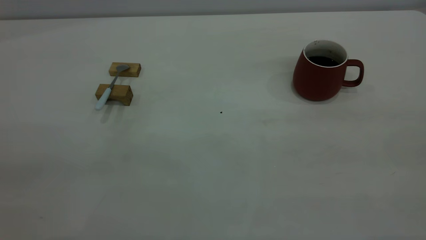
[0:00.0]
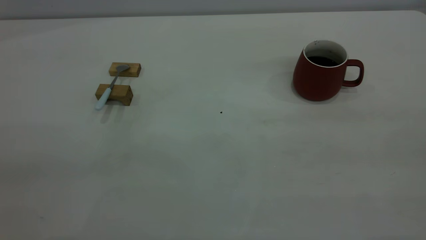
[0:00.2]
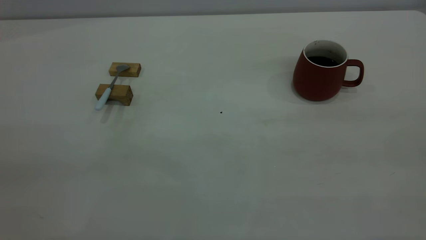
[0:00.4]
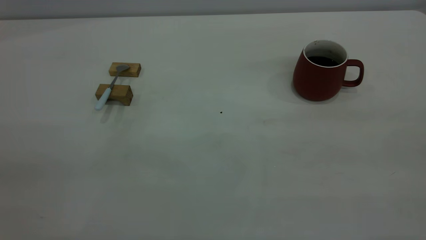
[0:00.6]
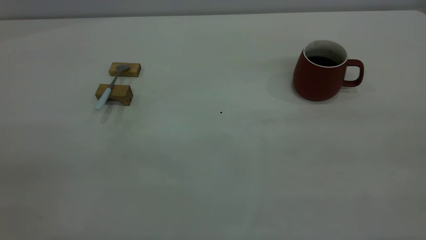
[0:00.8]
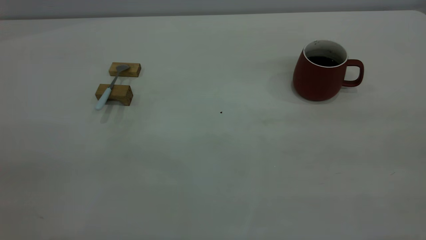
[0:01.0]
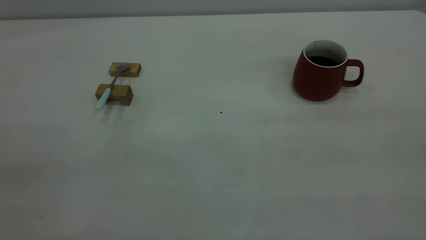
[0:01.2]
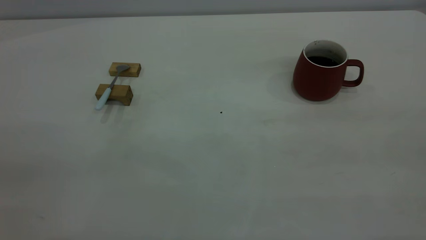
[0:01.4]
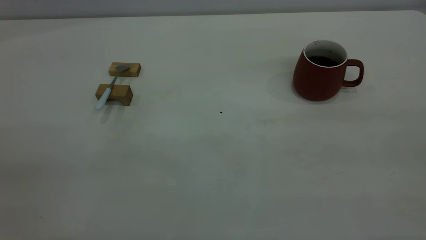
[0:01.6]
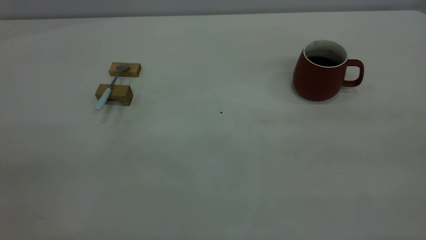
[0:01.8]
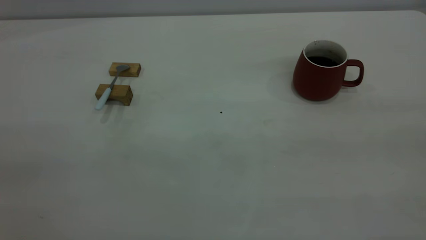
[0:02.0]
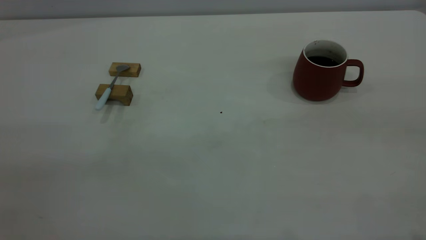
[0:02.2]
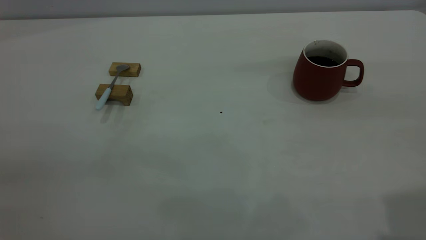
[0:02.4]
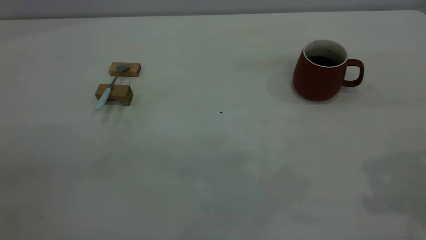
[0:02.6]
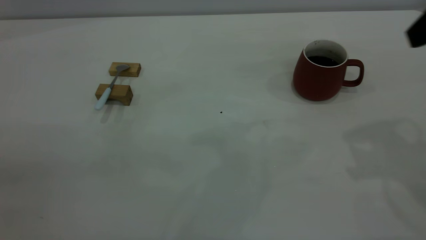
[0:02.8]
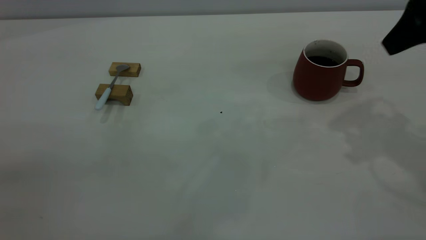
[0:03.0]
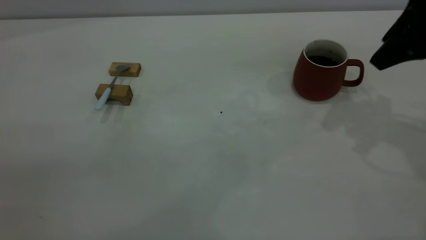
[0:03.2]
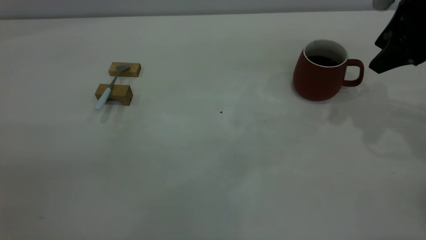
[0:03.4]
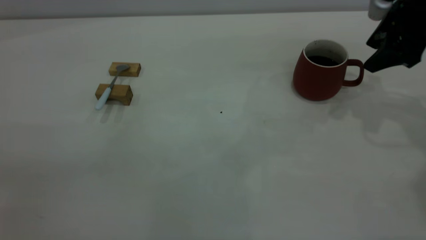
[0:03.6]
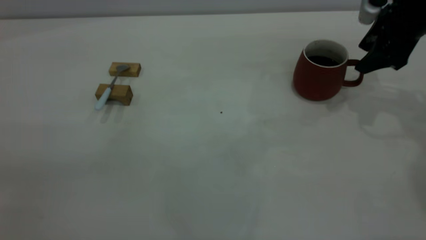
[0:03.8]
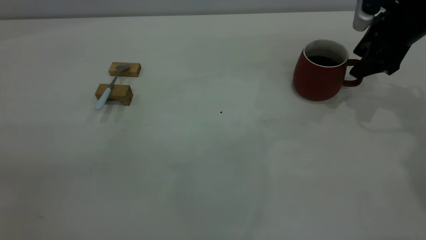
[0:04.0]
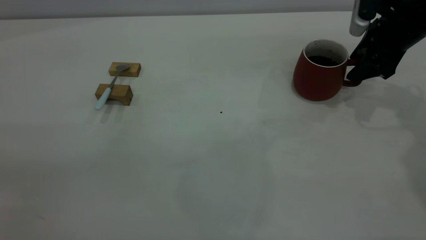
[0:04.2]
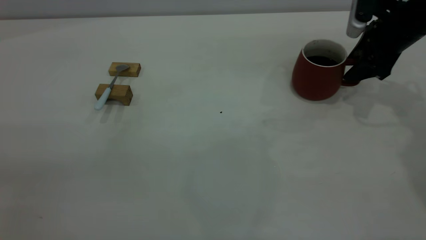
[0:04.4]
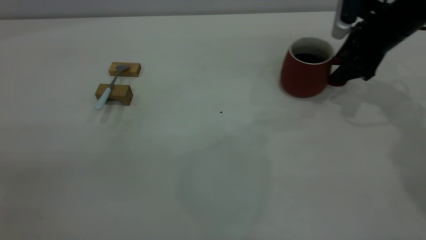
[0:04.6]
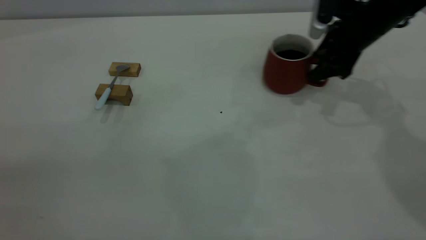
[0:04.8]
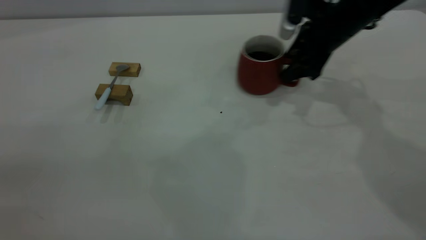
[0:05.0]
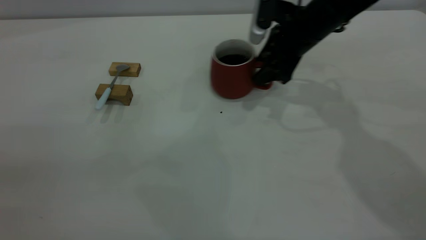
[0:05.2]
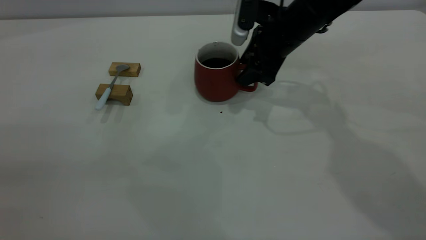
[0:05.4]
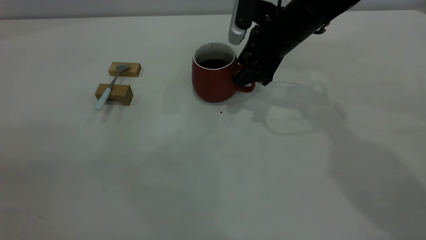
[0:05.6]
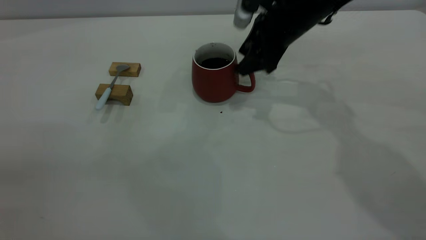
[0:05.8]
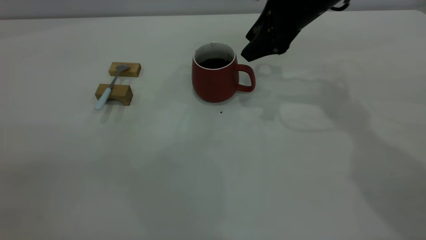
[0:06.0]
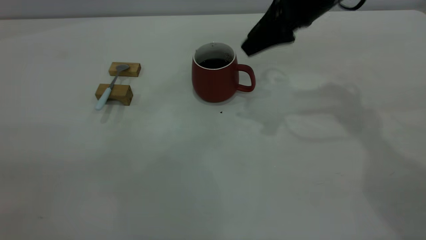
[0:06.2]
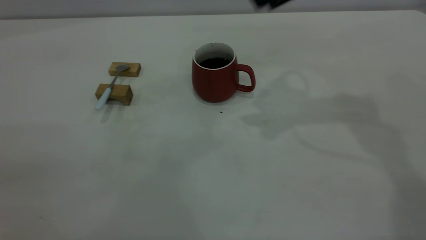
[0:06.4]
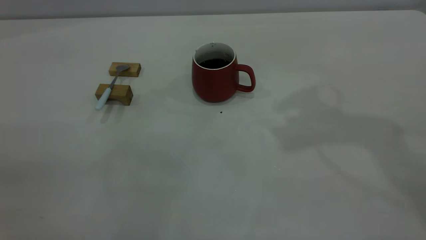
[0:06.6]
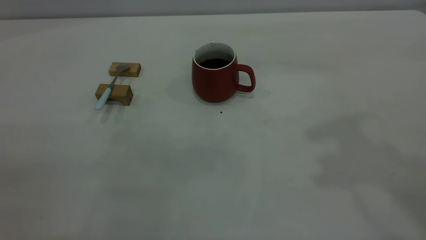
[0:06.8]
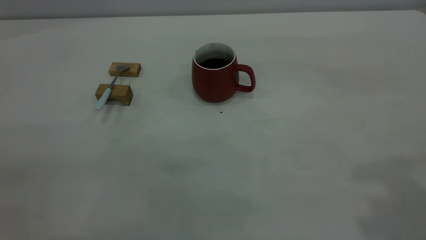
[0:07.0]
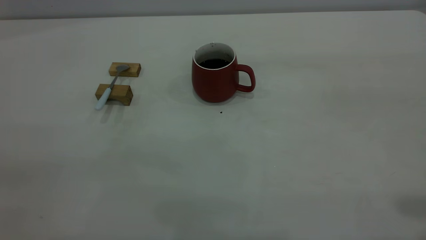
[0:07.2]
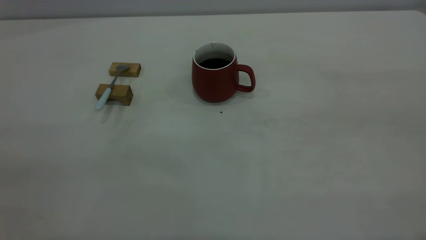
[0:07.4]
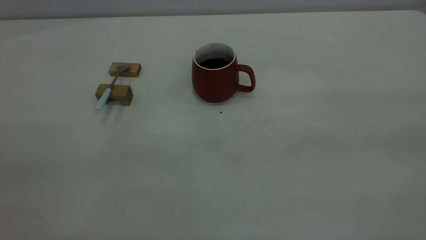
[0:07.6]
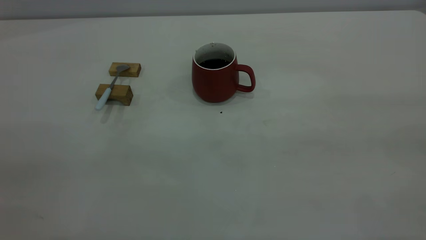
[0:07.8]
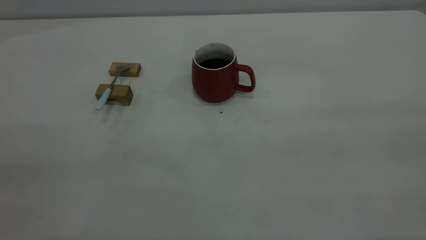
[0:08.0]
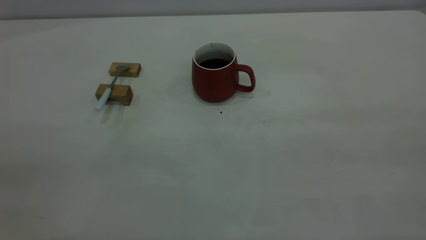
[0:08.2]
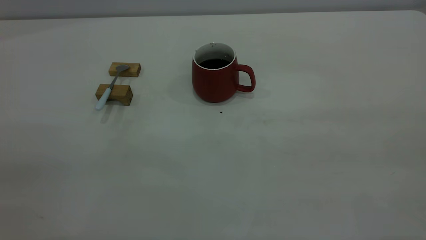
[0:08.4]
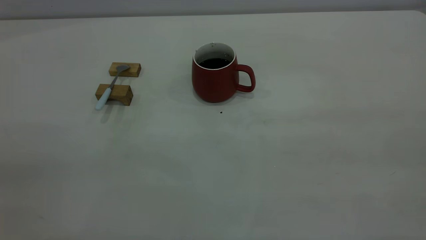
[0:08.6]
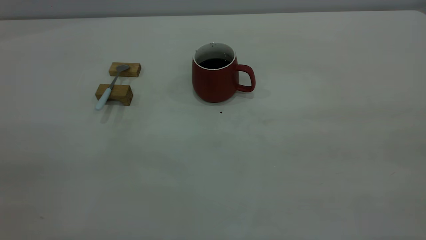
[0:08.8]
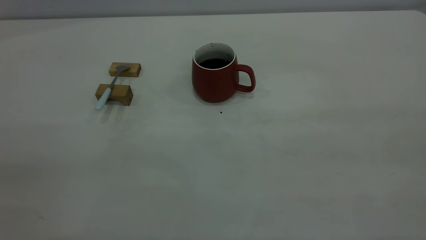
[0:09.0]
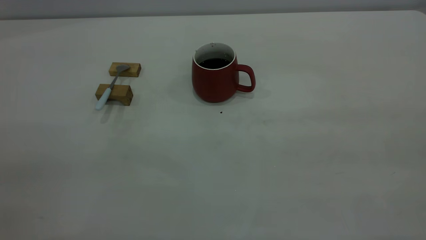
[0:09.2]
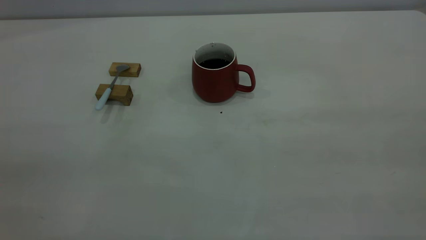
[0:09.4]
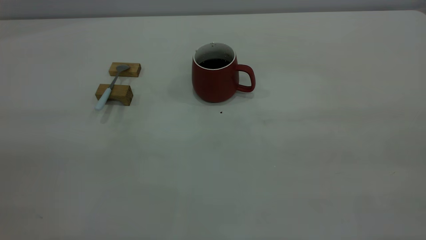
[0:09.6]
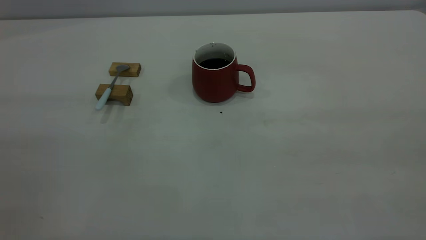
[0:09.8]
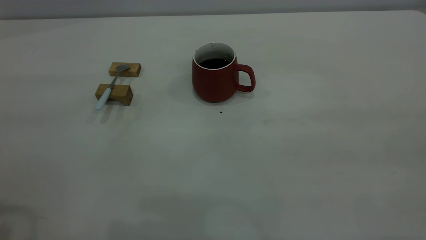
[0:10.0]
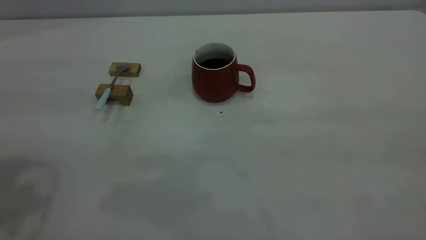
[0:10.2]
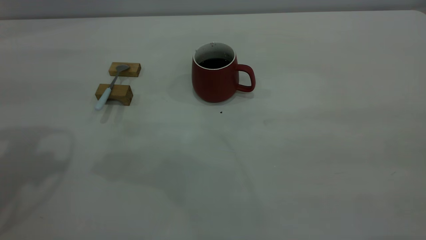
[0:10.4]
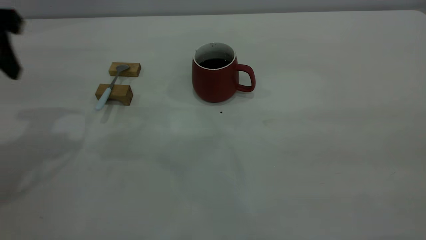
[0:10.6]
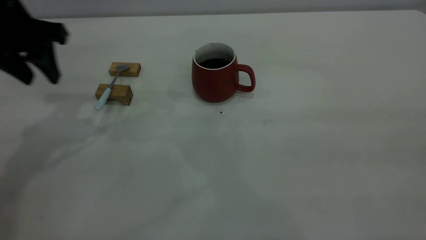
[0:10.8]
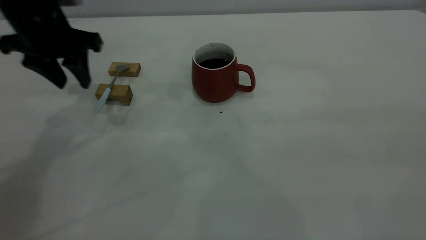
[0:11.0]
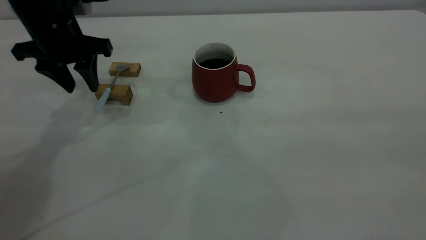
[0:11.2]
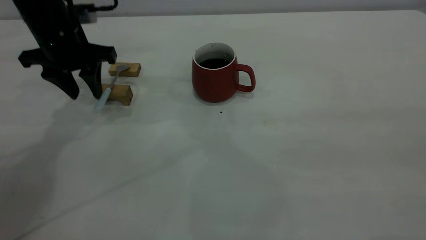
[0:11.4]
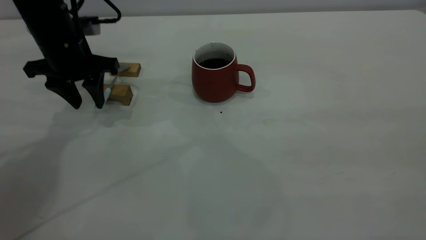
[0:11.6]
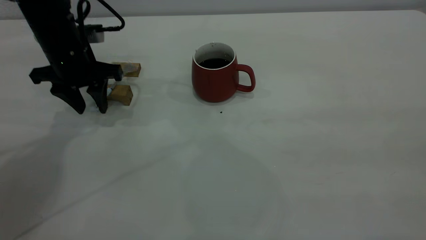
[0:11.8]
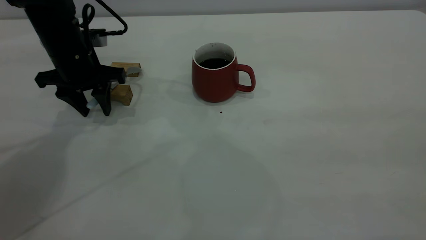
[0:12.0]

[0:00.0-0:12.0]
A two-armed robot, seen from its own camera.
Step, 0:00.0 to 0:06.0: Move the cup with coffee to the center of view.
0:00.0 to 0:01.6: Both grippers stay about where they are.
0:01.6 to 0:03.0: The right gripper moves forward, roughly 30 cm, and opens its fingers.
0:03.0 to 0:04.4: The right gripper travels downward and forward by approximately 20 cm.
0:04.4 to 0:06.0: The right gripper shifts approximately 15 cm to the left.
0:06.0 to 0:07.6: The right gripper shifts approximately 40 cm backward and upward, and closes up.
0:10.4 to 0:12.0: The left gripper moves downward and forward, roughly 25 cm.

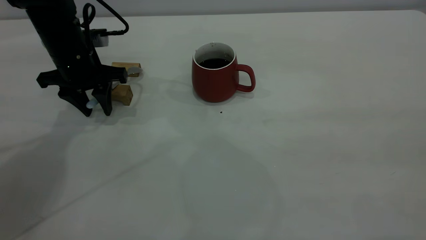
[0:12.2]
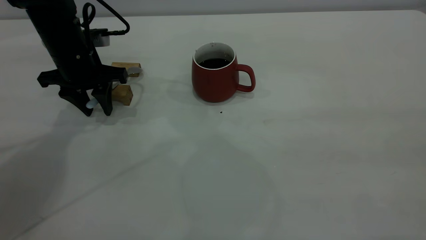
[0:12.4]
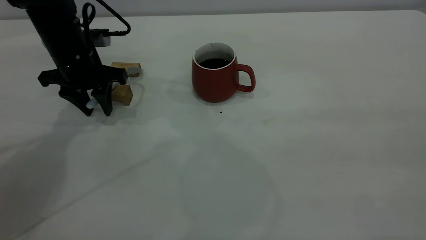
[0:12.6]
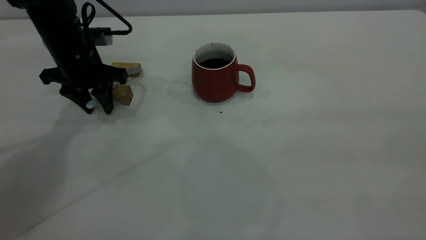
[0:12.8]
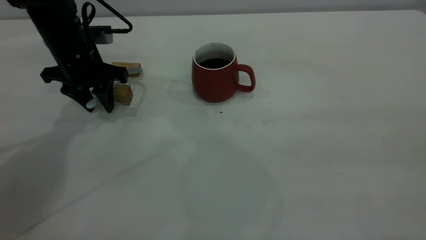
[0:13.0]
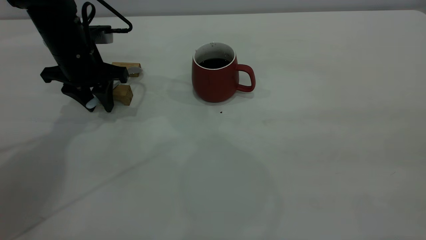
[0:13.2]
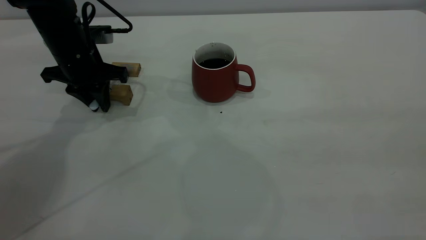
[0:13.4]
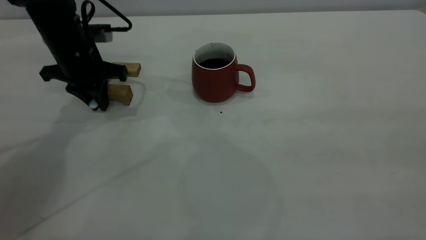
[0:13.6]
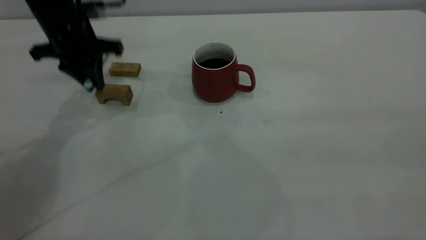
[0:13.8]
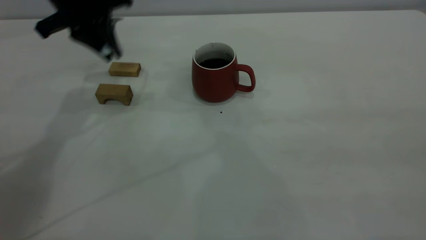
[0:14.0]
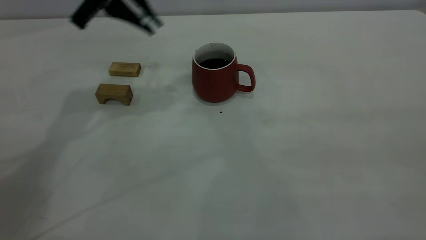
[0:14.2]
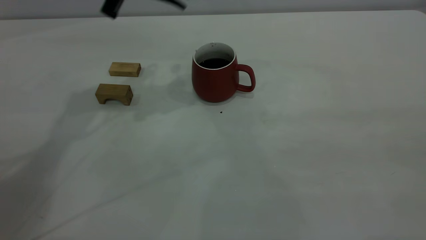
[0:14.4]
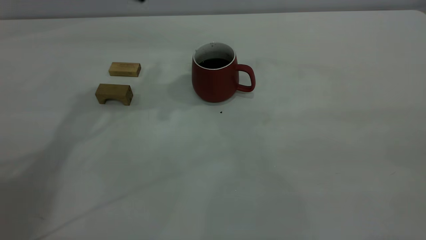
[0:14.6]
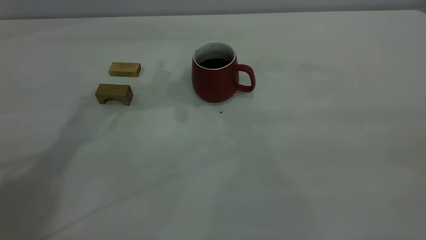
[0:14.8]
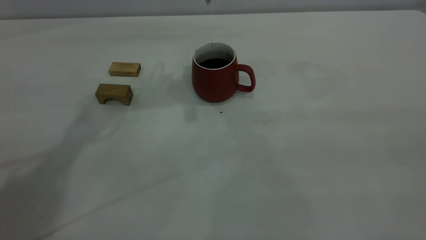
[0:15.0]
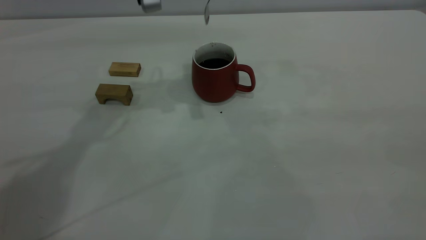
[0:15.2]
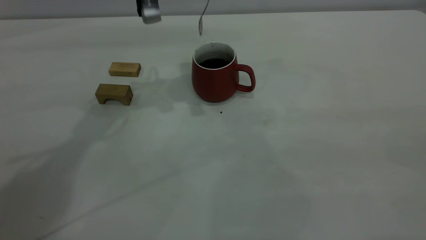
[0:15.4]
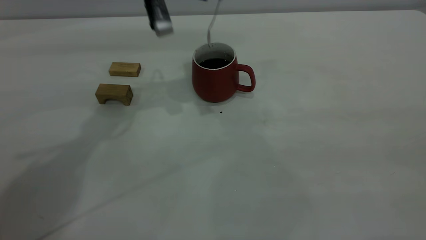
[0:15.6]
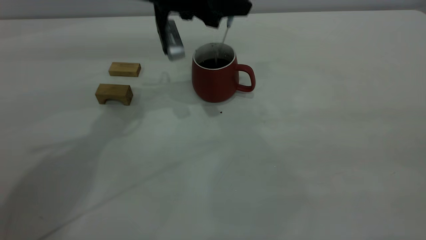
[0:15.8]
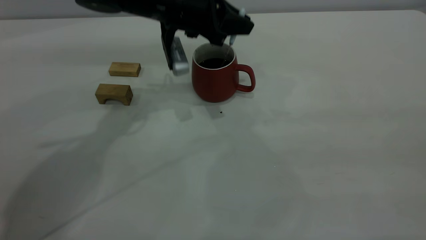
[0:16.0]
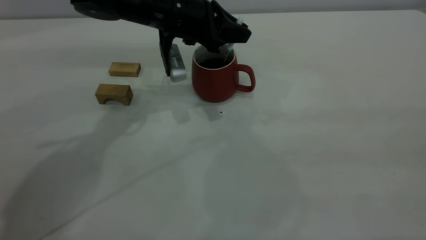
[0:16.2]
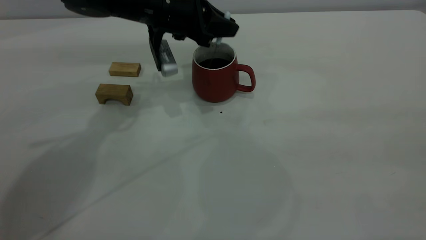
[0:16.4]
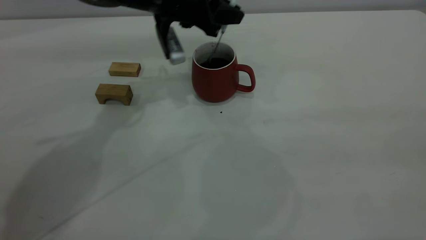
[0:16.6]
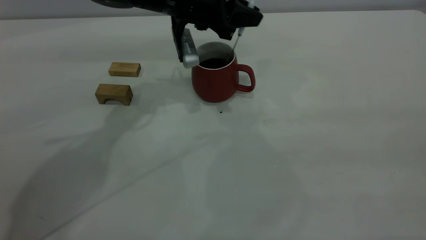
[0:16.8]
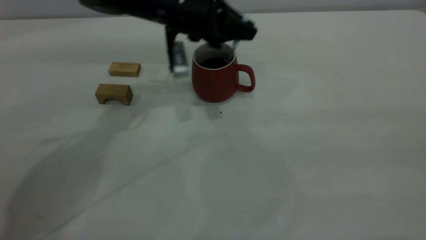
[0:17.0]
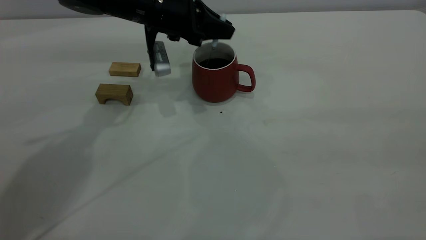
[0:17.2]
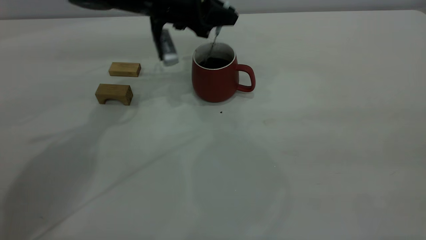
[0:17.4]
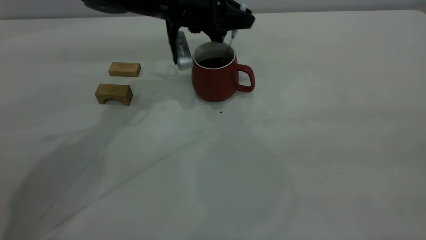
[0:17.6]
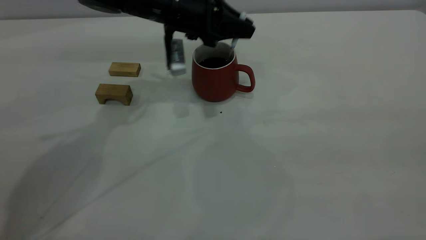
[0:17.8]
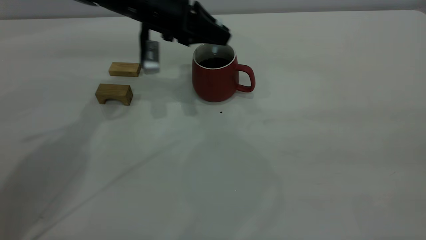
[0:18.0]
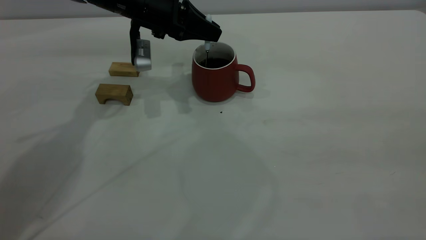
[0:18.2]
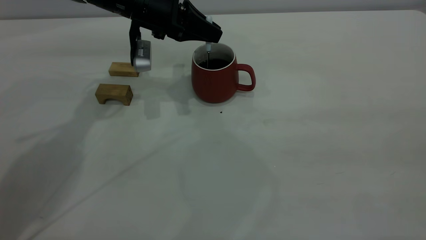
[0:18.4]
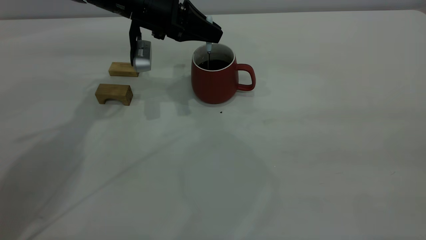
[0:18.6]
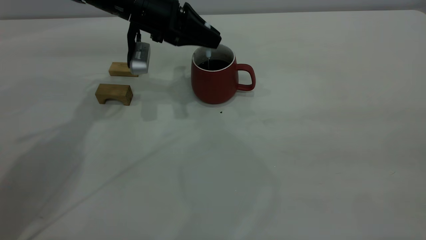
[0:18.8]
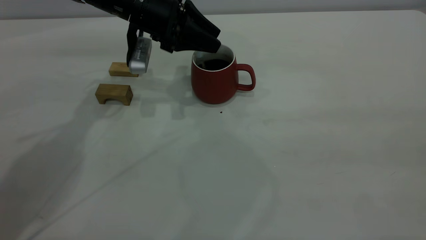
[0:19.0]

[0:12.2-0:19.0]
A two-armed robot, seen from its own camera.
0:12.2 to 0:13.6: The left gripper closes up.
0:13.6 to 0:15.0: The left gripper shifts approximately 20 cm upward and to the right.
0:15.0 to 0:16.2: The left gripper shifts about 15 cm downward.
0:16.2 to 0:17.6: The grippers move only a little.
0:17.6 to 0:19.0: The left gripper shifts about 5 cm to the left, and opens its fingers.
